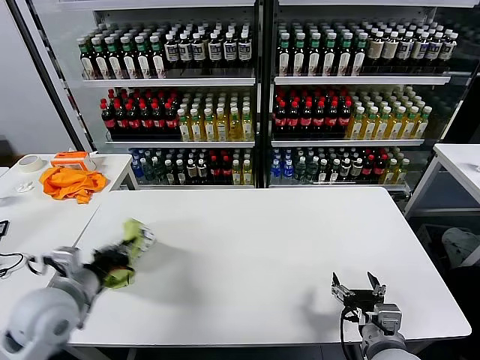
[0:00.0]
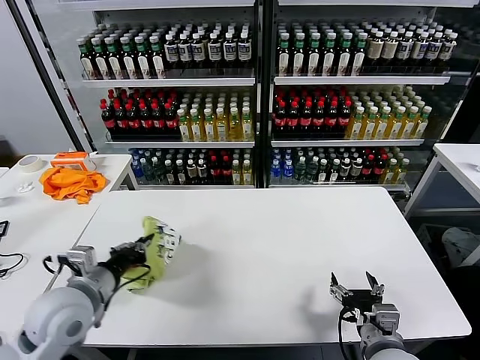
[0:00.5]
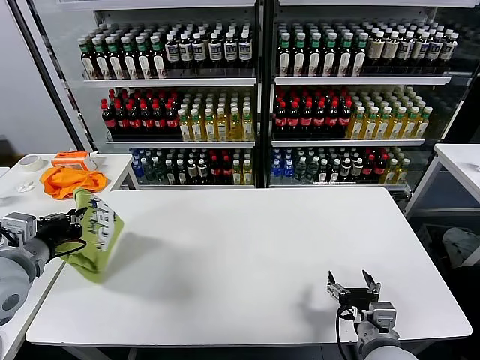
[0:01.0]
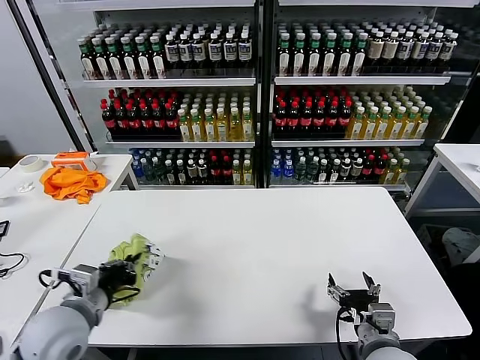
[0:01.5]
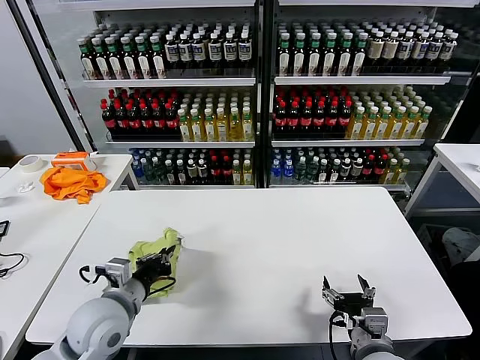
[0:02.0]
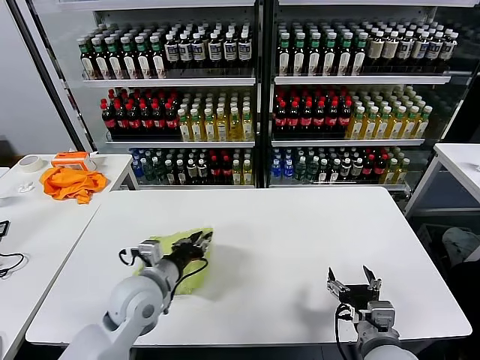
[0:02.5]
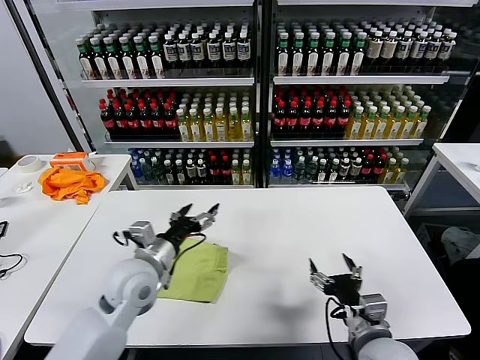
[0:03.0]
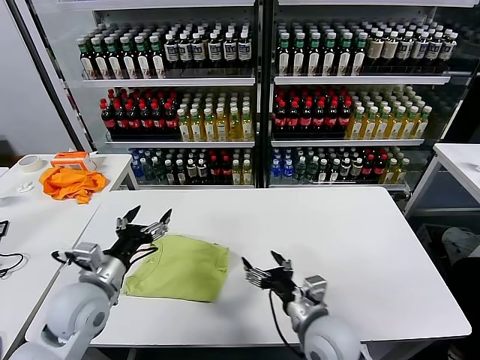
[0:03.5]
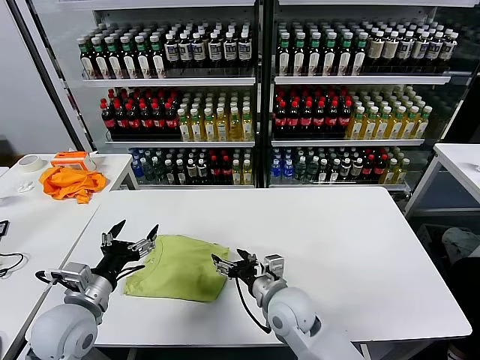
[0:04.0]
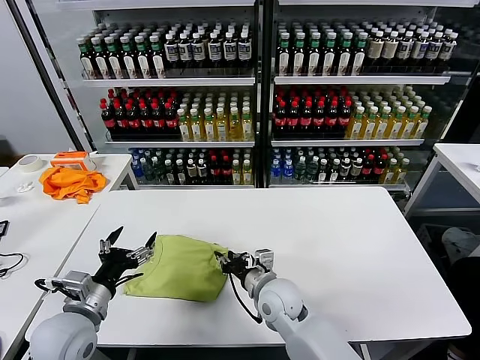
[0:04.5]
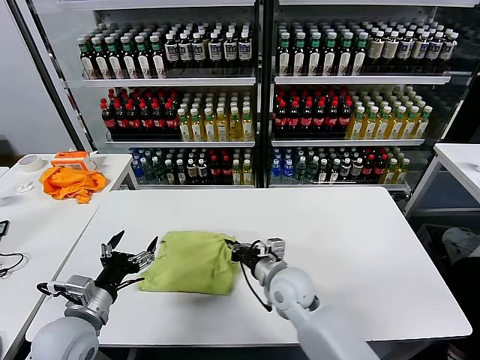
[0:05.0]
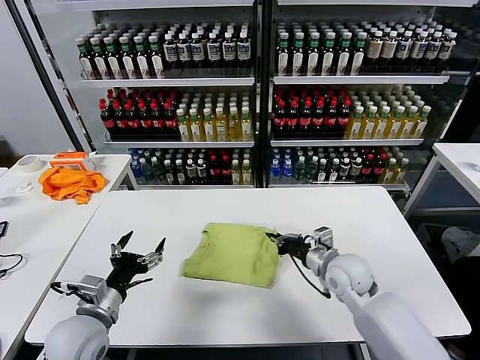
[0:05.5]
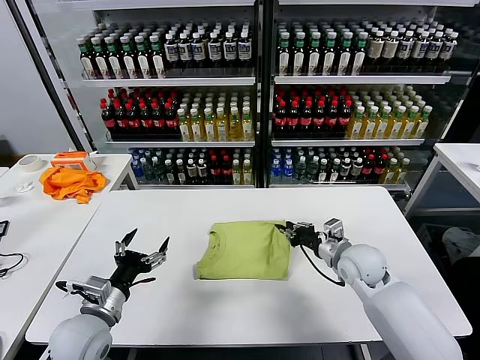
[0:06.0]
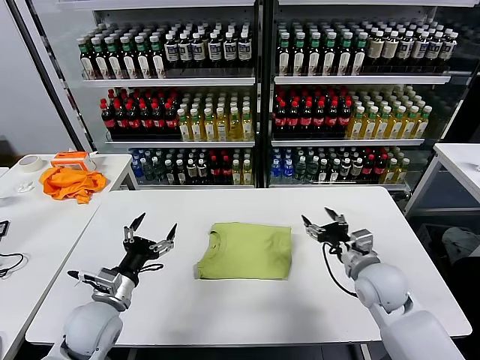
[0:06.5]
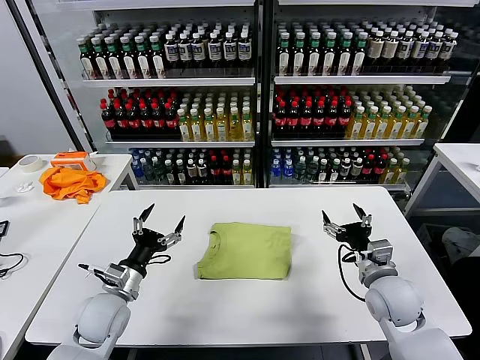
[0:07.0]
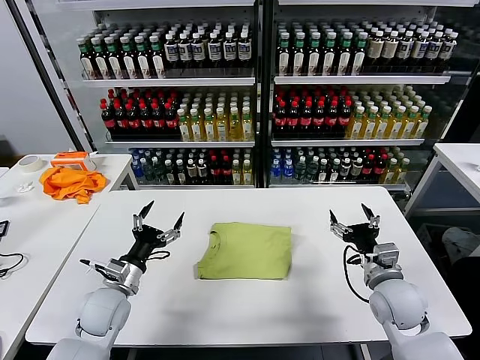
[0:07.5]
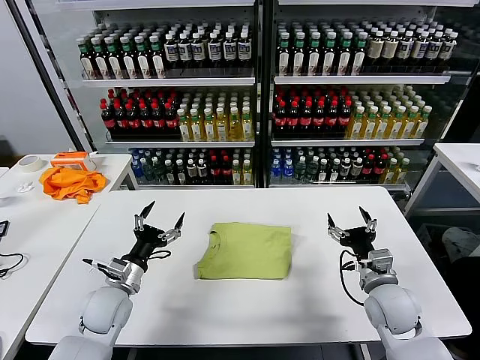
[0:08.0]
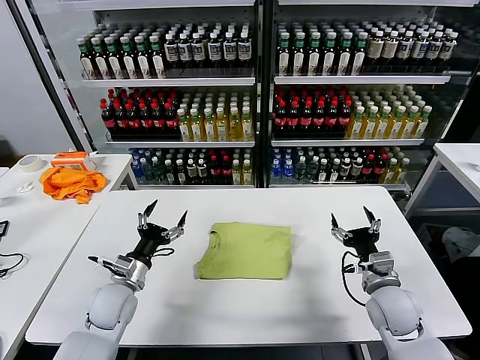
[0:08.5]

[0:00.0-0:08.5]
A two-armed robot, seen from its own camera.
Task of the whole recording: fold and organize the clothes.
Step, 0:00.0 to 0:02.5: Flip the folded clothes over with left gripper.
Step, 0:03.0 to 0:06.0: Drag the clothes to the center of the table.
0:00.0 to 0:02.0: The left gripper moves left and right over some 15 cm, changing direction 2 times.
0:02.0 to 0:04.0: The left gripper goes roughly 5 cm to the left, and opens its fingers. The right gripper is displaced to the left and forward by about 20 cm.
0:04.0 to 0:06.5: The left gripper is displaced downward by roughly 5 cm; the right gripper travels to the right by approximately 20 cm, and closes, then opens again.
0:06.5 to 0:08.5: The left gripper is displaced forward by roughly 5 cm, while the right gripper moves roughly 5 cm.
